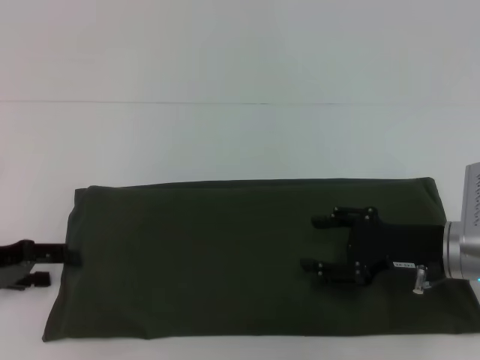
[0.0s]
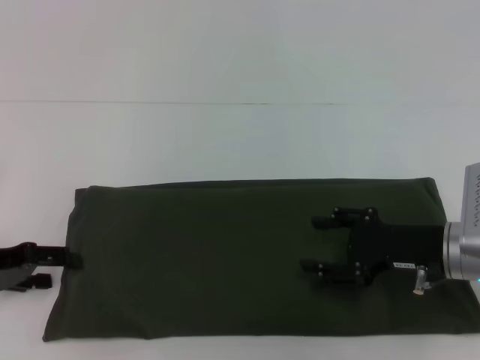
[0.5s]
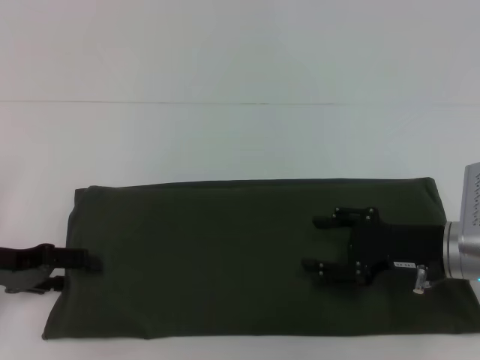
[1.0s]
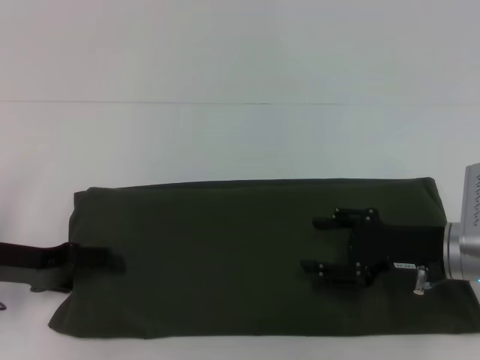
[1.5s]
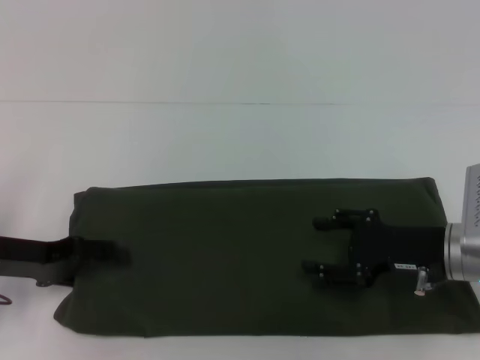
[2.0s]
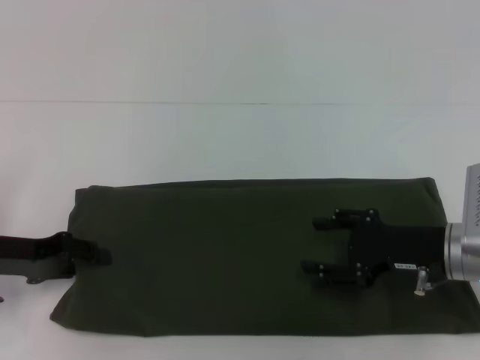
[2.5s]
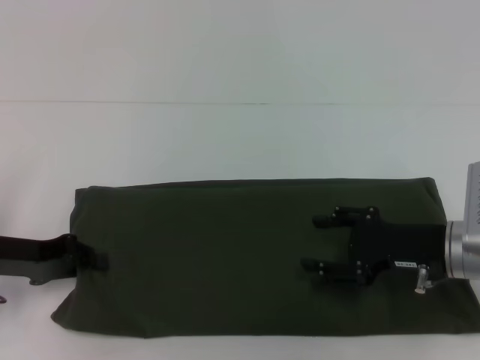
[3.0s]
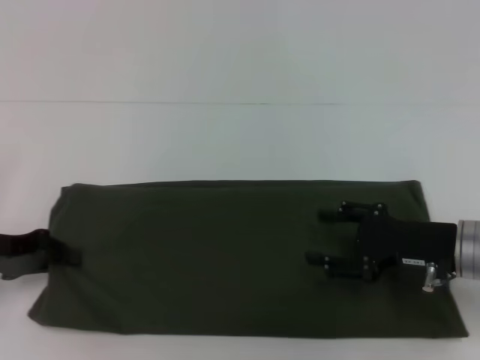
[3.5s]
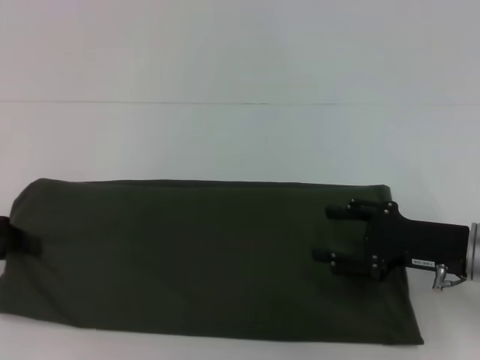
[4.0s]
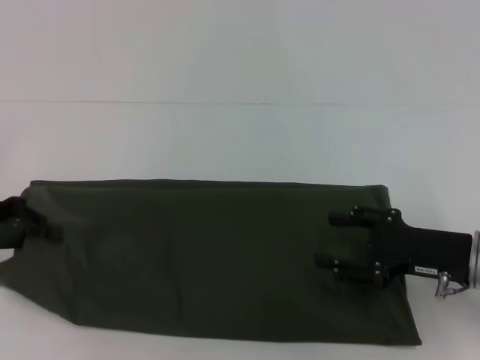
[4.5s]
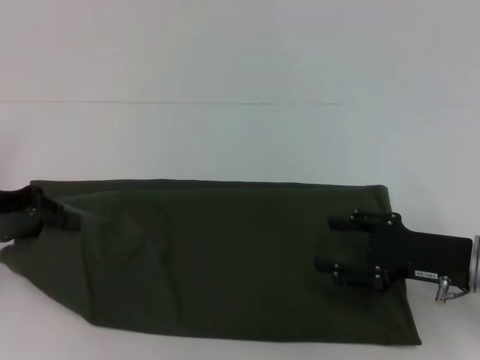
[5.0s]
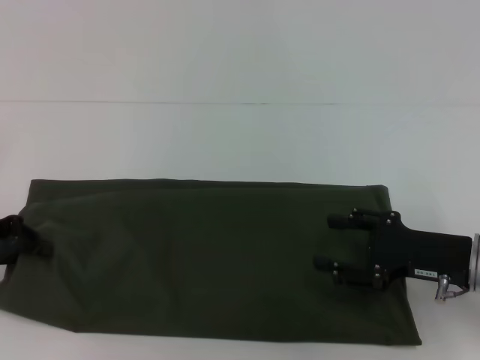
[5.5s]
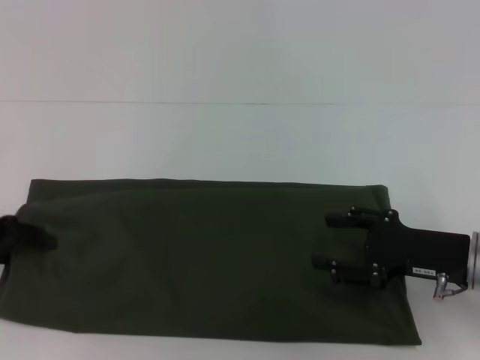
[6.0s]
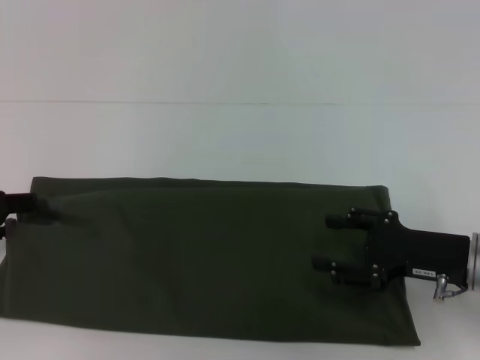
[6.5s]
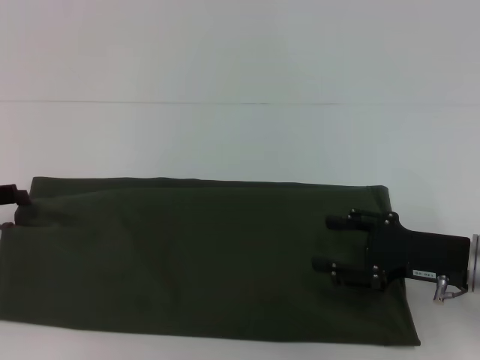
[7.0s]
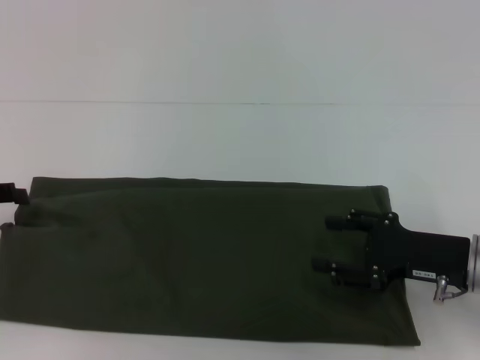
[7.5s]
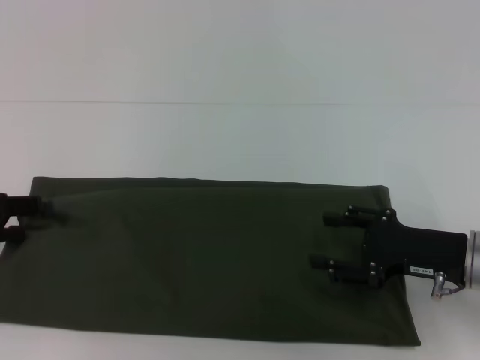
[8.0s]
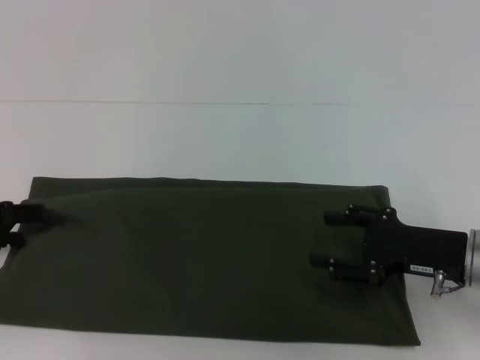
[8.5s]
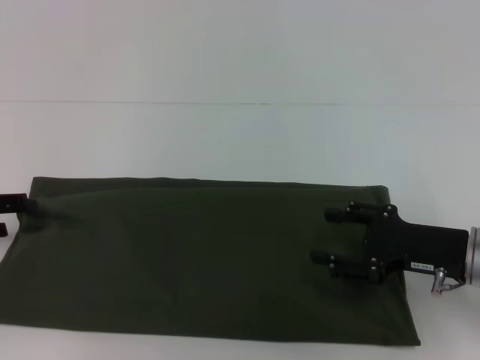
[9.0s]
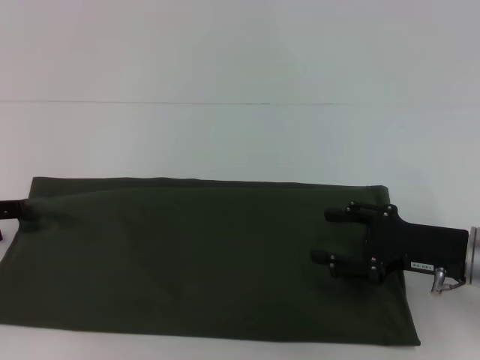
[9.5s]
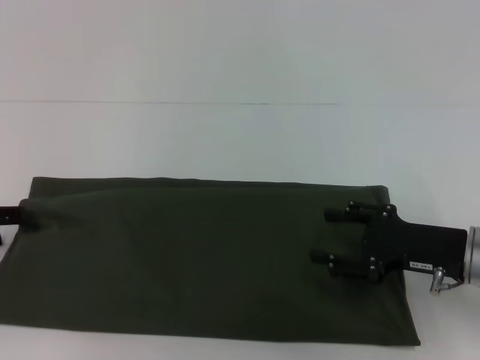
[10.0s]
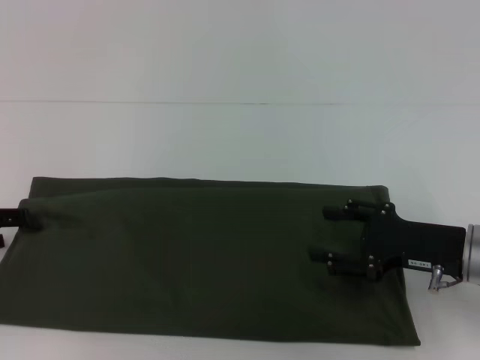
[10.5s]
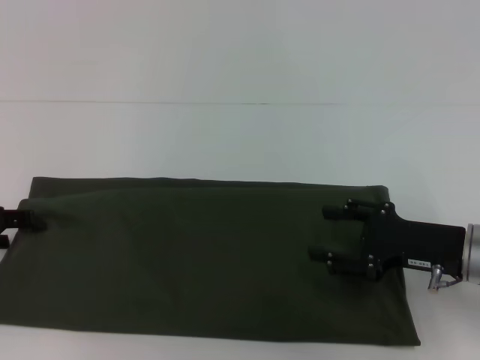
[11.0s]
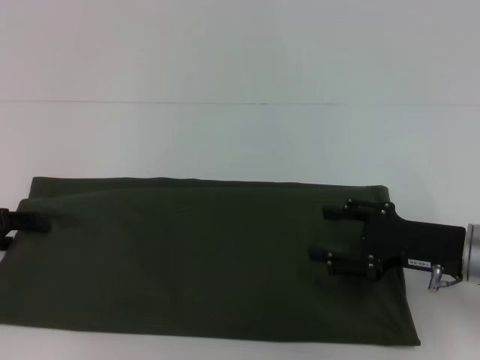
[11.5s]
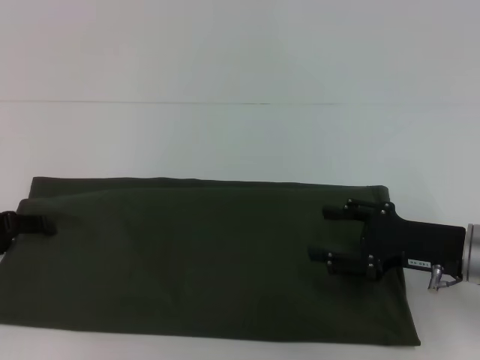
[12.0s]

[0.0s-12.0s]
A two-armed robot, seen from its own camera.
0.0s to 2.0s: The grippers stay close to where they were, moving slightly.
2.0s to 4.0s: The left gripper travels to the left by some 5 cm, and closes its fingers.
4.0s to 6.0s: The grippers move only a little.
6.0s to 8.0s: The left gripper opens.
8.0s to 12.0s: The grippers stay close to where they were, moving slightly.

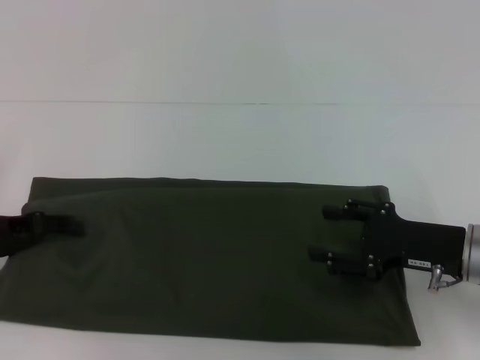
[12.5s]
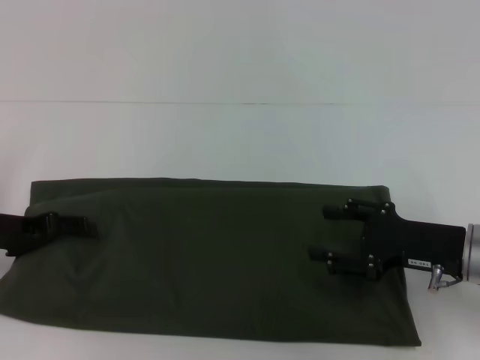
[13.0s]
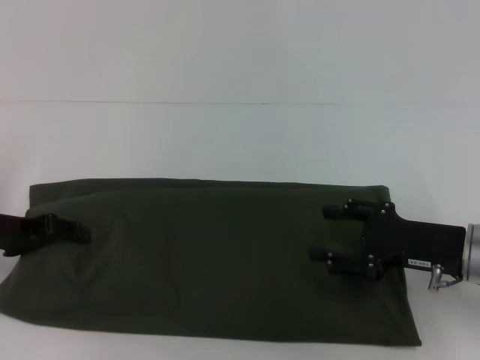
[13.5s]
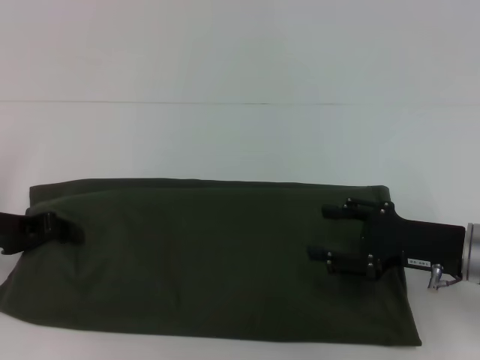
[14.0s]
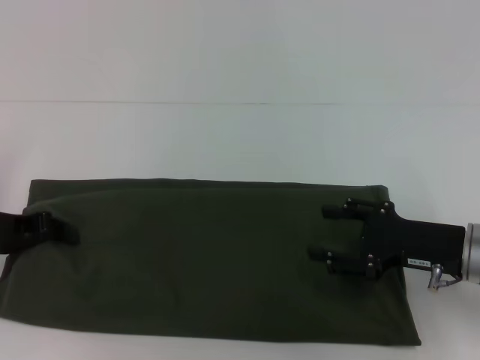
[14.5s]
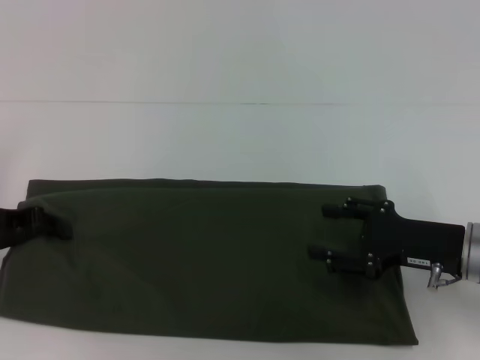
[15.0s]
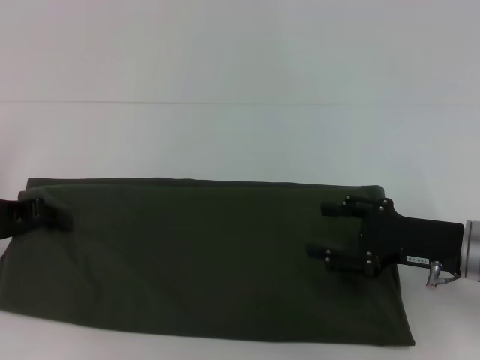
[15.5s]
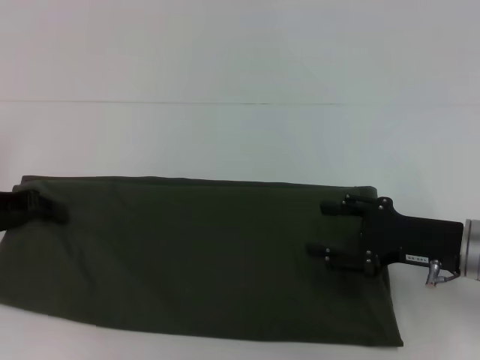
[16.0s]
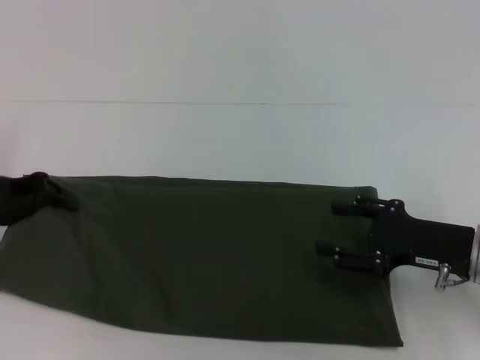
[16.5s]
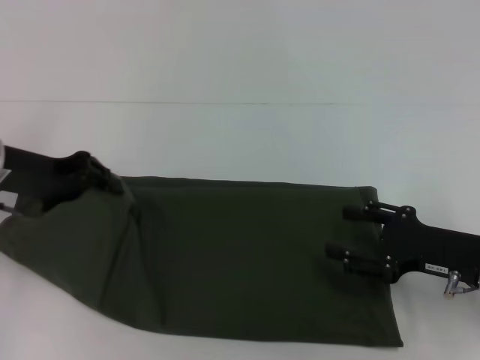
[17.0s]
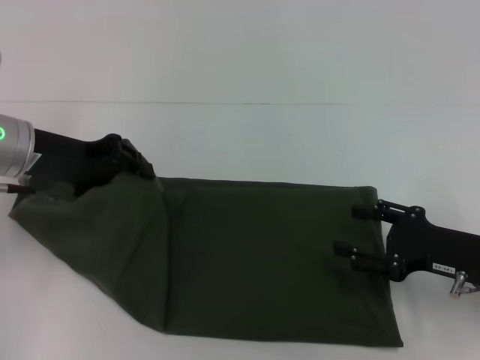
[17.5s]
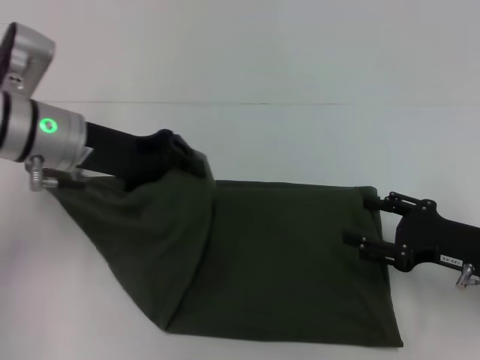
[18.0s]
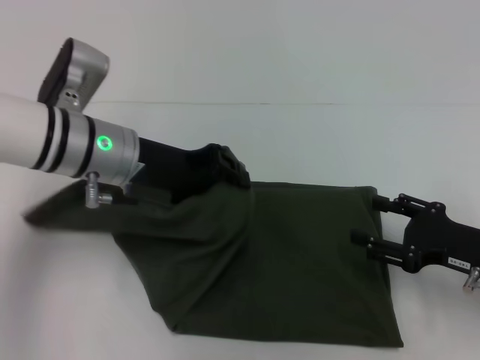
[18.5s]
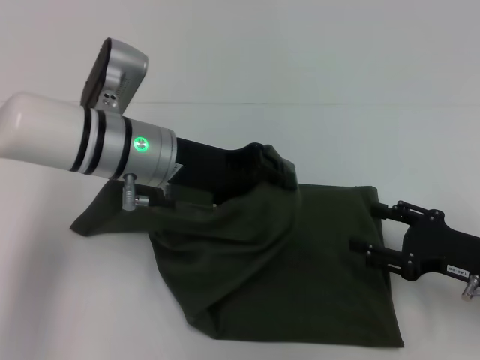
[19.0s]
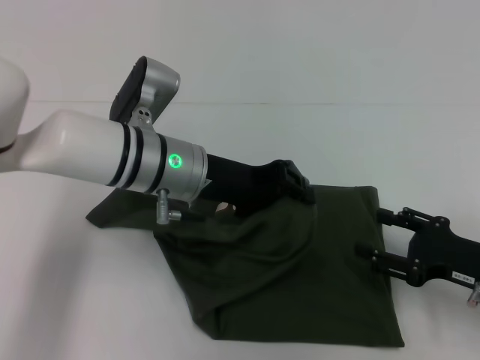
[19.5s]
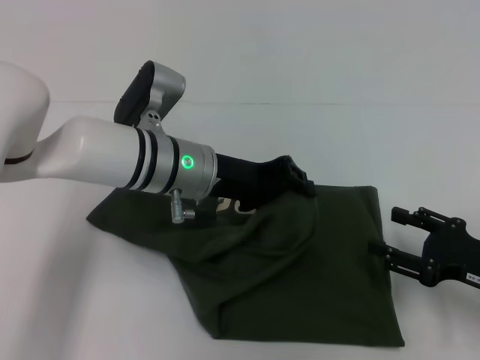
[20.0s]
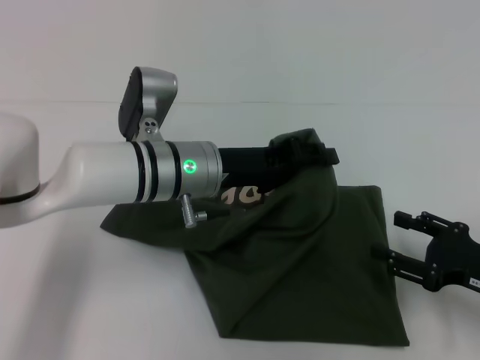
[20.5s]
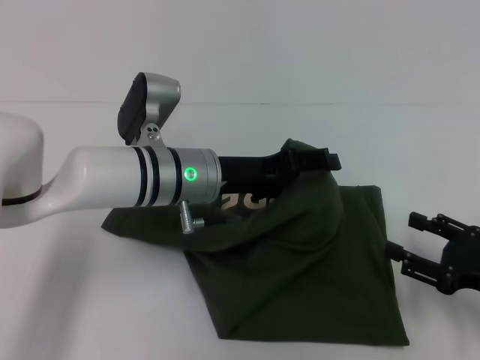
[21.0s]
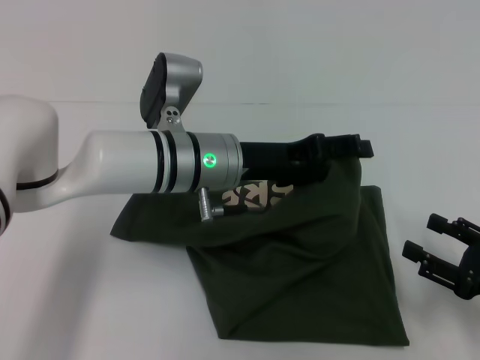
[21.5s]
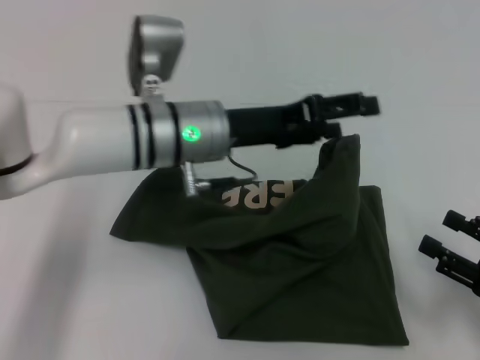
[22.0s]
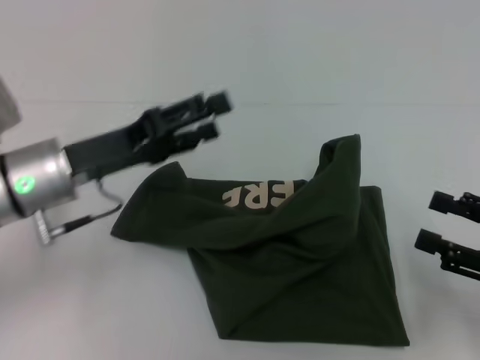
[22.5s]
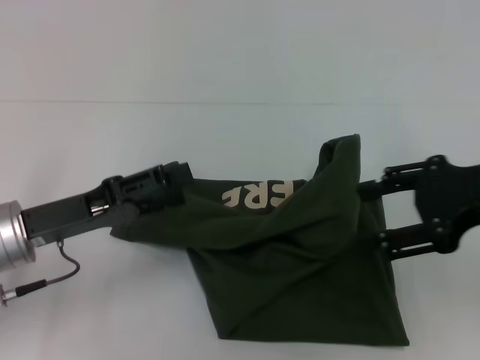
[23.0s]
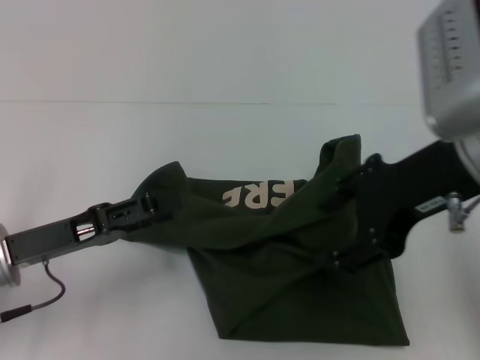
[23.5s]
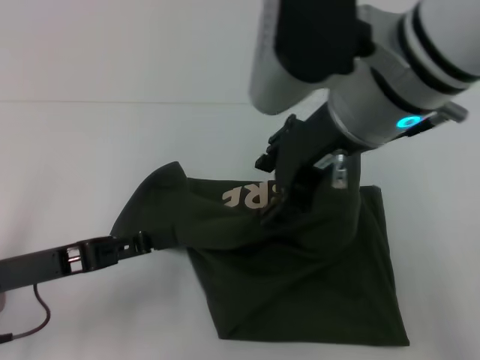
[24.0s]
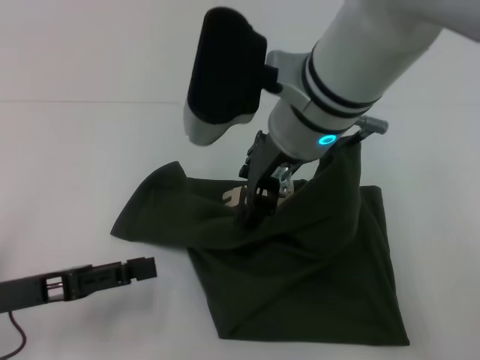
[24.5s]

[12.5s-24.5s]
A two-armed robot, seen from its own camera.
12.5s to 14.5s: The left gripper closes.
14.5s to 16.5s: The grippers make only small movements.
16.5s to 18.5s: The left gripper goes approximately 15 cm to the right.
18.5s to 20.5s: The left gripper goes about 5 cm to the right.
20.5s to 22.5s: The left gripper goes some 10 cm to the left, and opens up. The right gripper shifts some 5 cm upward.
22.5s to 24.5s: The left gripper goes approximately 10 cm backward and to the left. Meanwhile the right gripper heads to the left, upward and forward, covering some 35 cm.

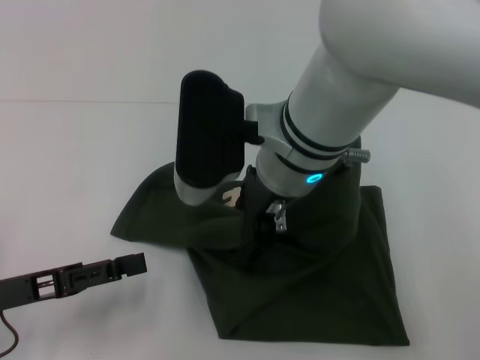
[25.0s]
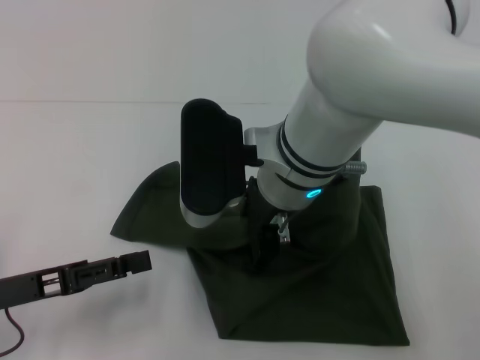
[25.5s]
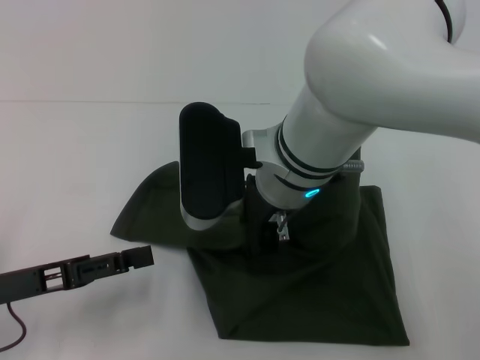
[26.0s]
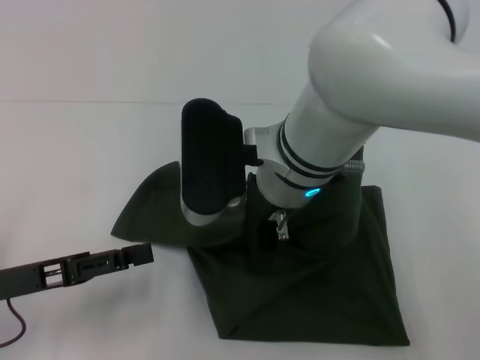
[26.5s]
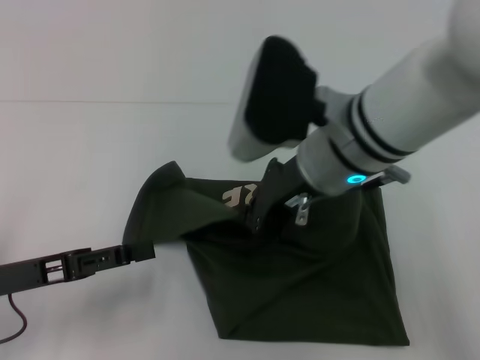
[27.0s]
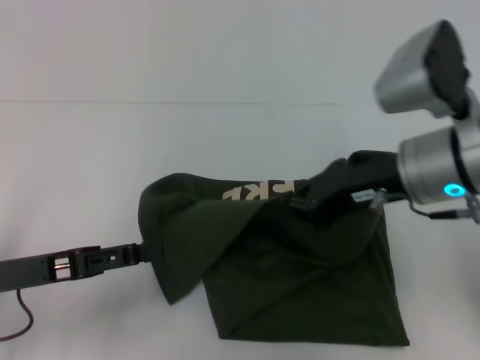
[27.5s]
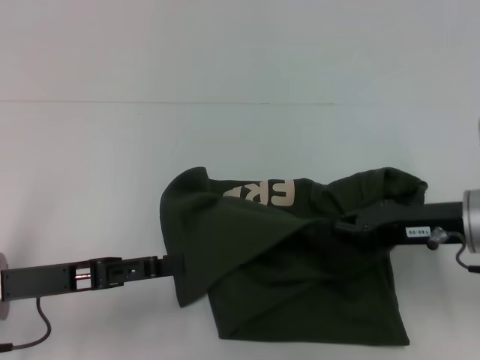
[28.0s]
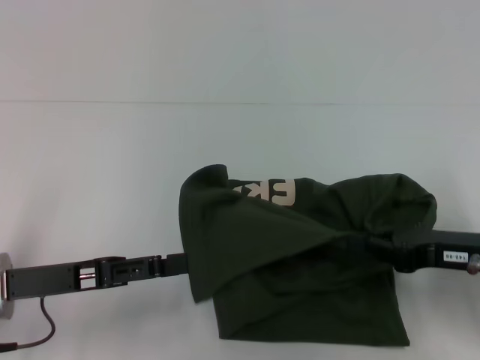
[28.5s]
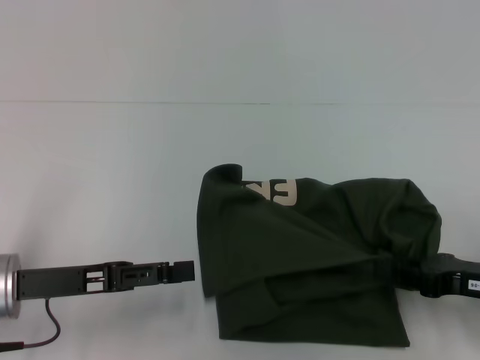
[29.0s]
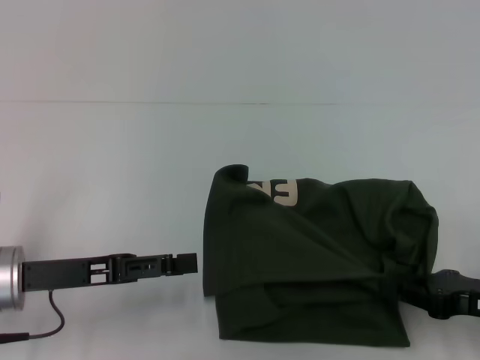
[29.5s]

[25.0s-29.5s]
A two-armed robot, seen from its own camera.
25.0s to 27.0s: The right gripper closes its fingers.
27.0s to 29.5s: The right gripper is displaced to the right and downward by some 30 cm.
